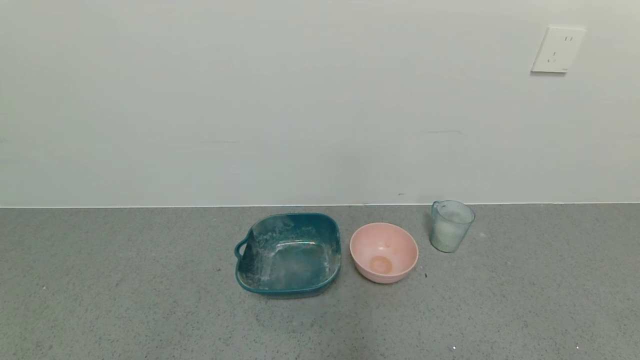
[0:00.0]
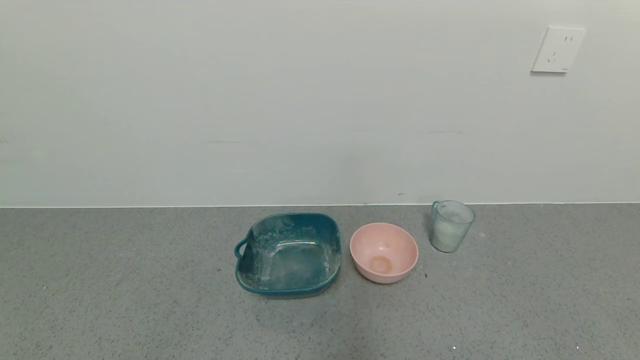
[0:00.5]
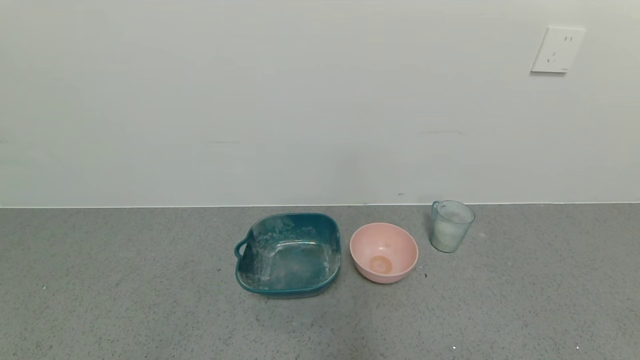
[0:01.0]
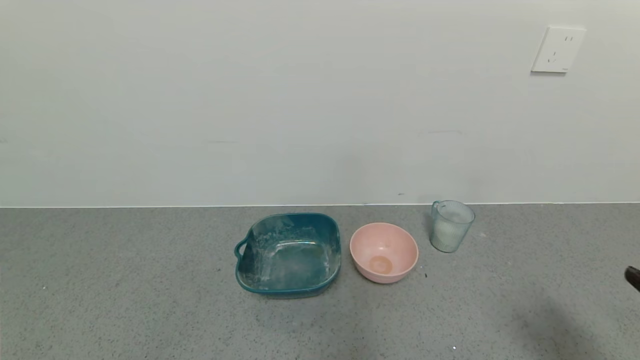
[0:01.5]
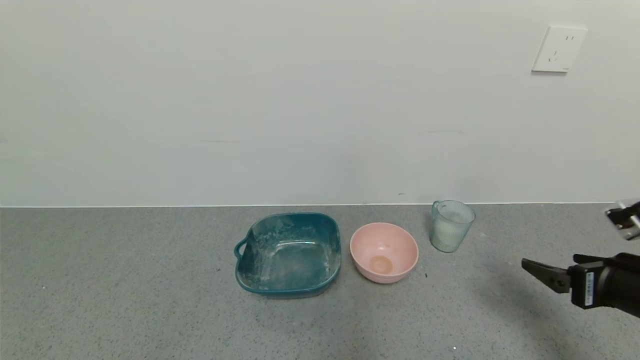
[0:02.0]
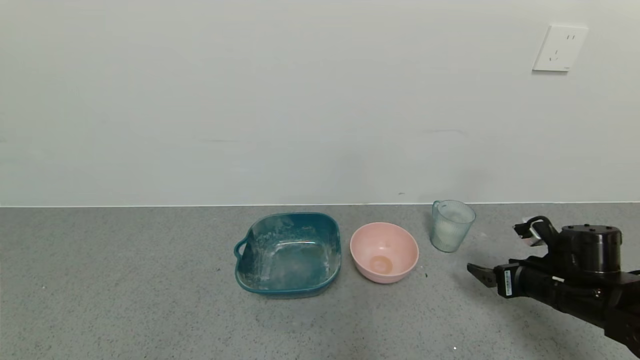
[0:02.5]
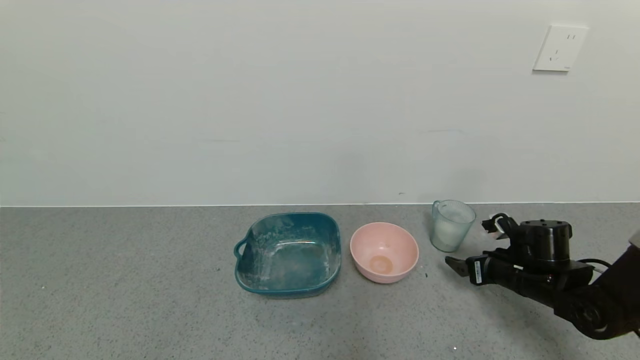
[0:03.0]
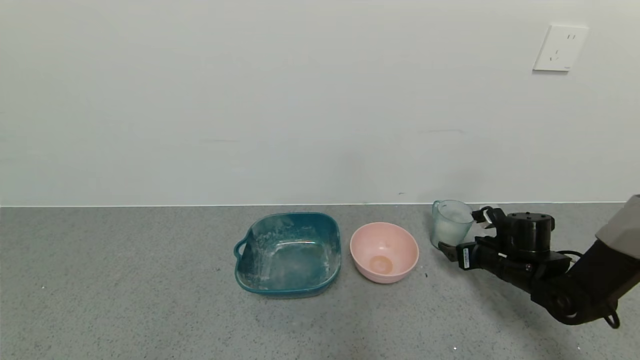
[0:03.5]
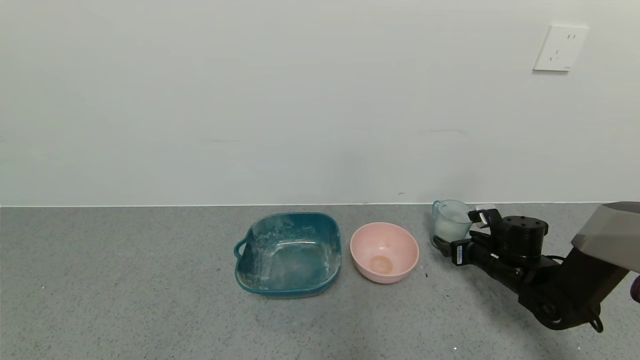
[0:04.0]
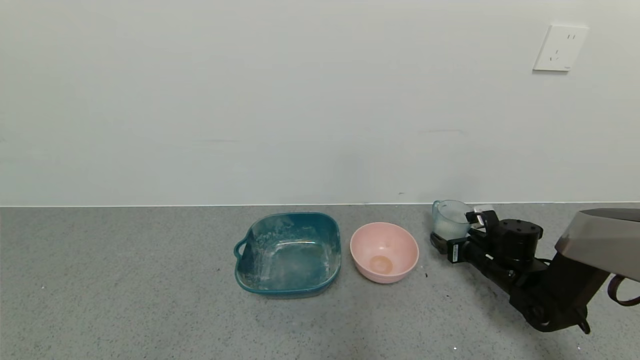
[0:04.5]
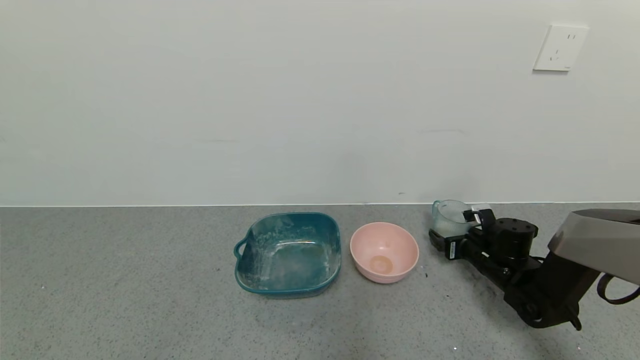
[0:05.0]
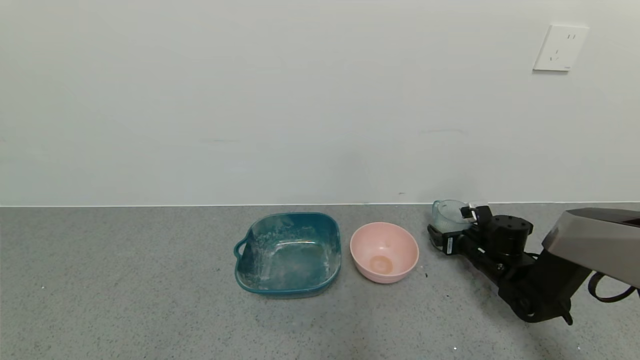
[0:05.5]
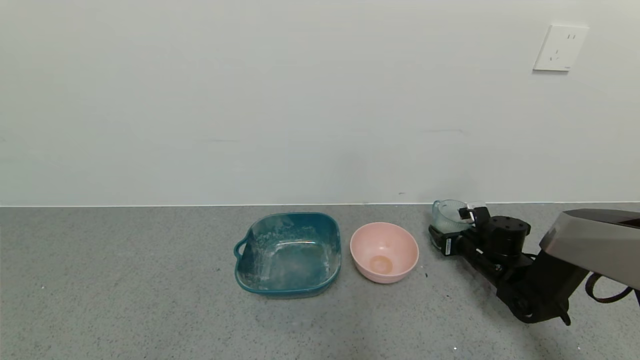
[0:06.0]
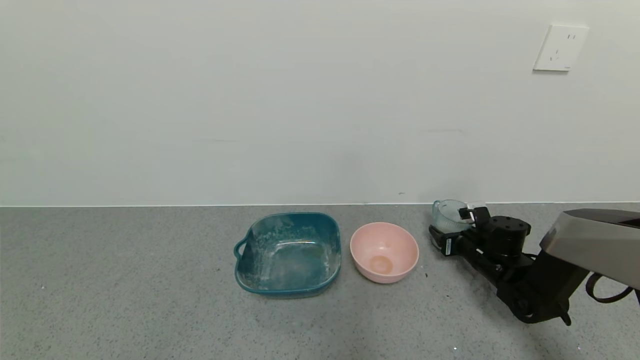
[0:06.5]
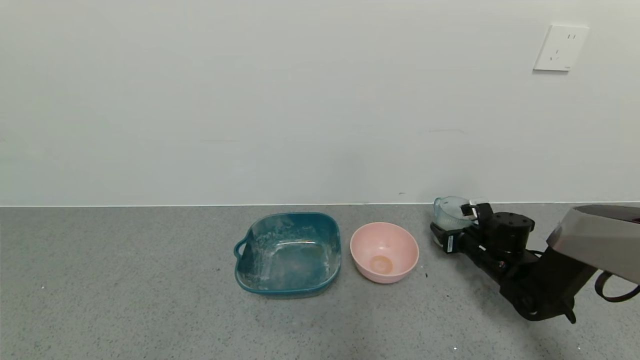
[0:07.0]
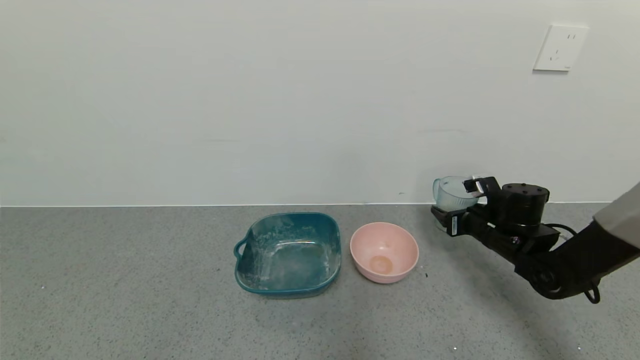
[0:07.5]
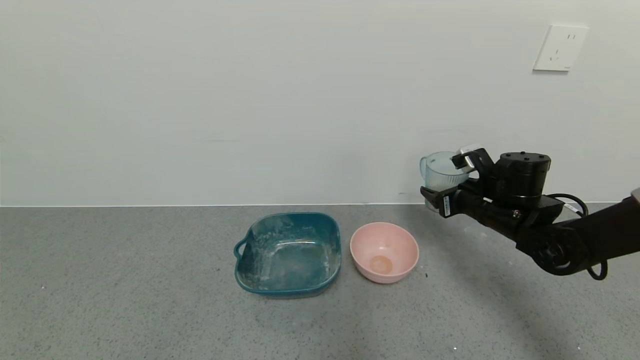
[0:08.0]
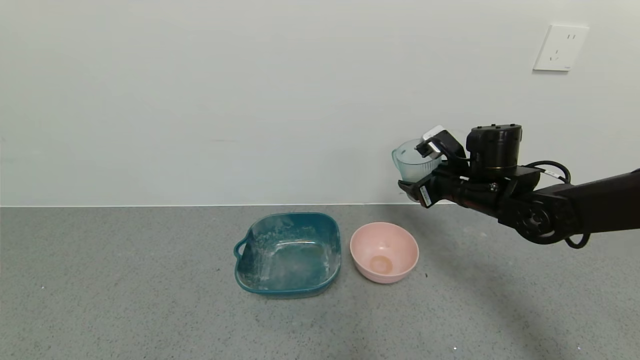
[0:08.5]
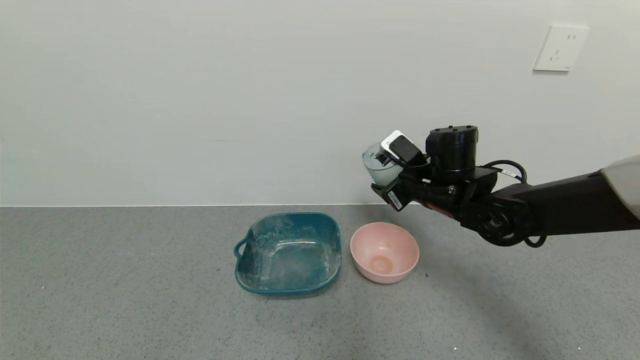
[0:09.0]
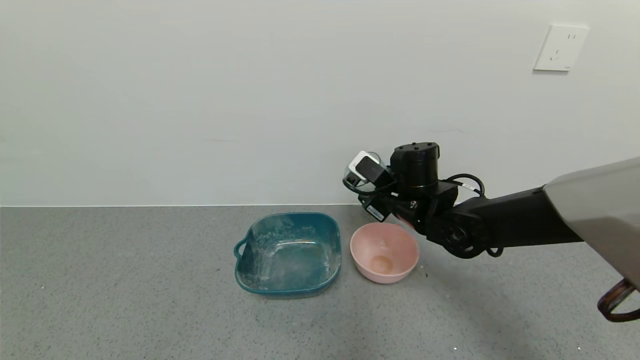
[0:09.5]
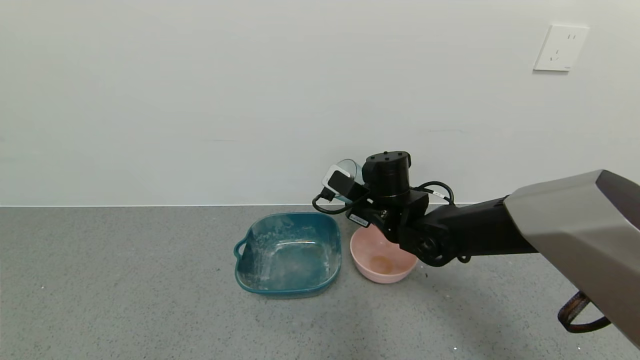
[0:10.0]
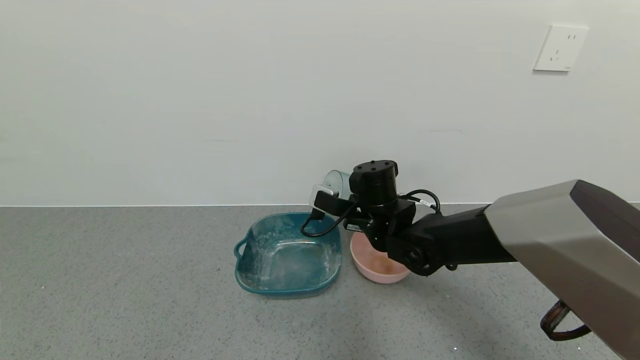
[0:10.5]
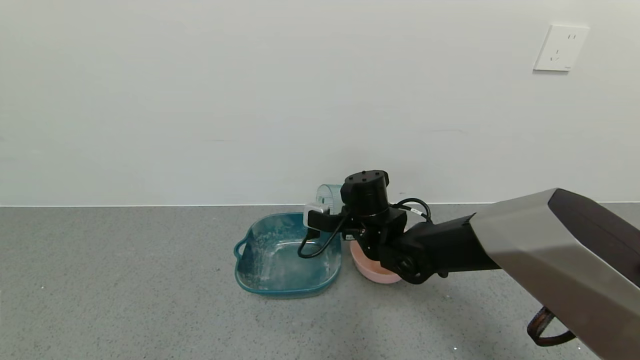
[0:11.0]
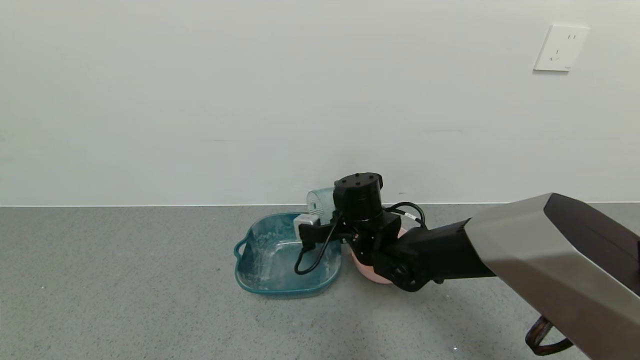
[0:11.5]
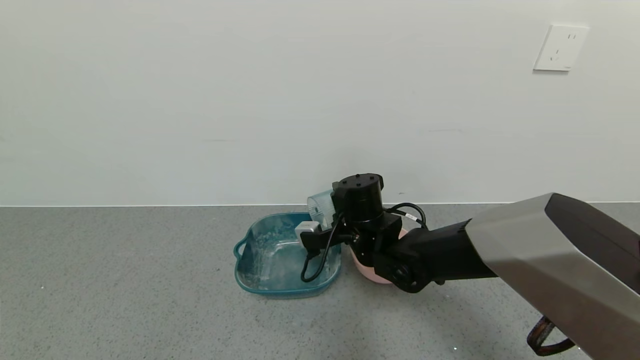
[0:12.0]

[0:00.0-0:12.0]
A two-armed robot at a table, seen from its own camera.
Task of the whole recording: use a gripper to pick up the cup and pour the powder into a bowl or tray.
Step, 0:00.0 to 0:06.0: Grasp the glass of powder with the right gripper.
0:00.0 to 0:02.0: The right gripper goes about 20 cm forward.
0:02.0 to 0:04.0: The right gripper heads forward and downward, covering about 20 cm.
0:04.0 to 0:06.0: The right gripper closes.
0:06.0 to 0:08.0: The right gripper travels upward by roughly 15 cm.
0:08.0 to 0:10.0: The right gripper travels to the left by roughly 20 cm.

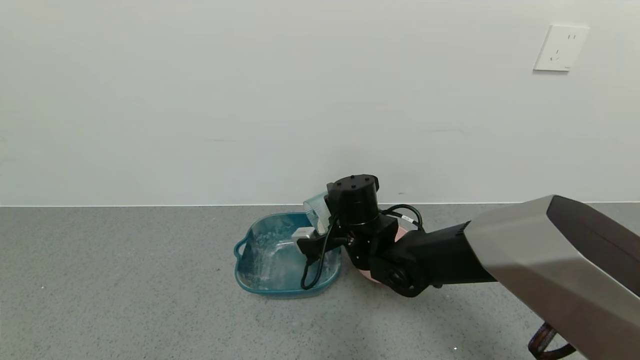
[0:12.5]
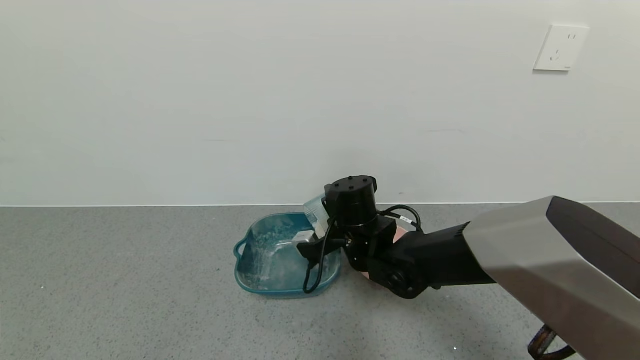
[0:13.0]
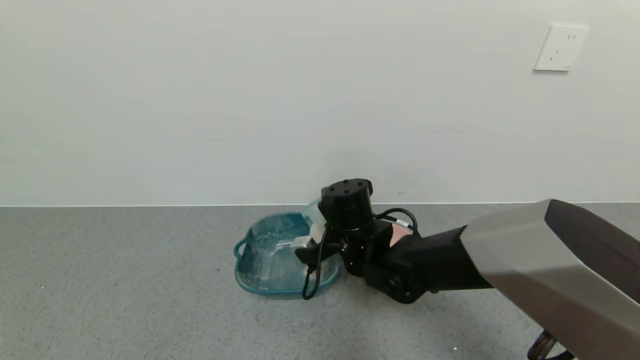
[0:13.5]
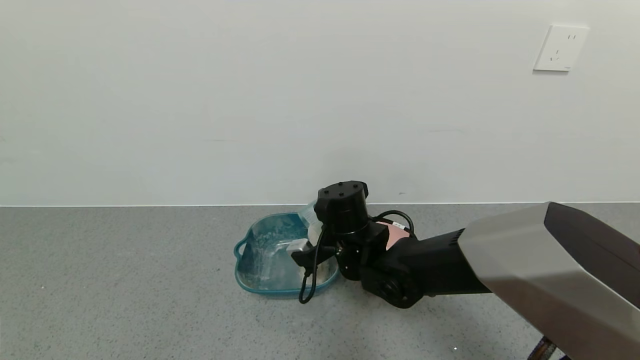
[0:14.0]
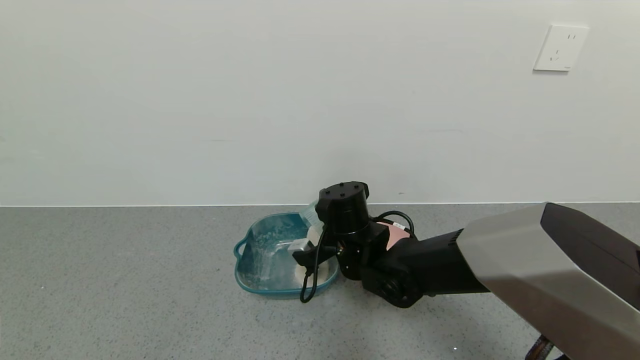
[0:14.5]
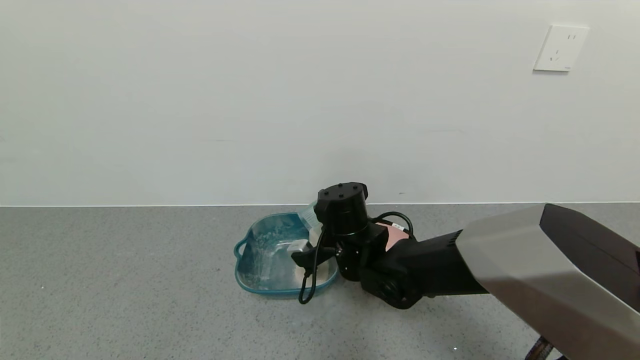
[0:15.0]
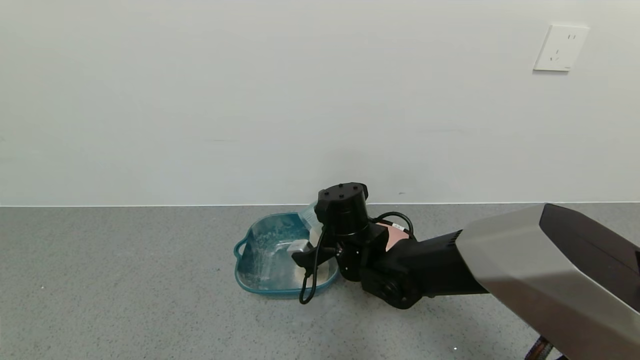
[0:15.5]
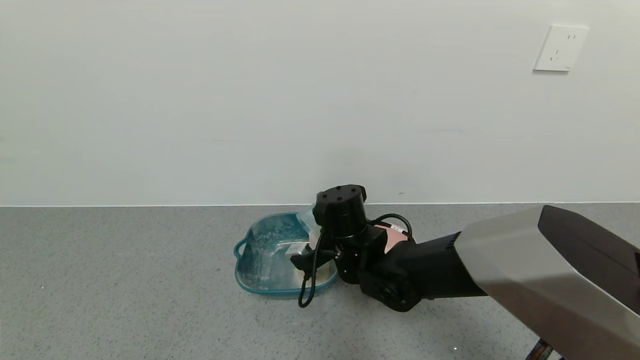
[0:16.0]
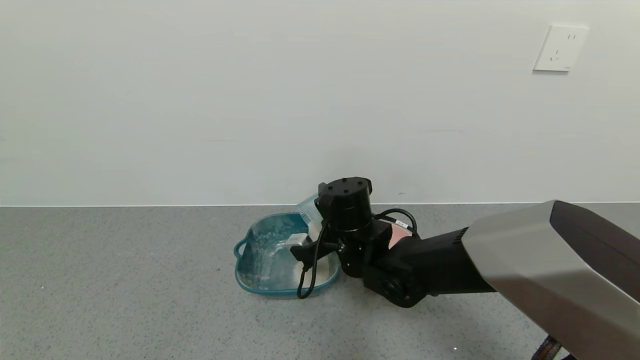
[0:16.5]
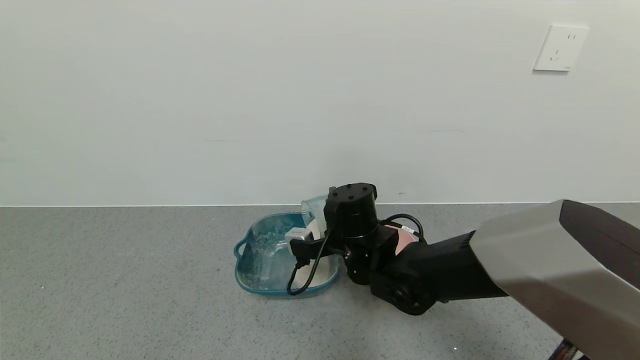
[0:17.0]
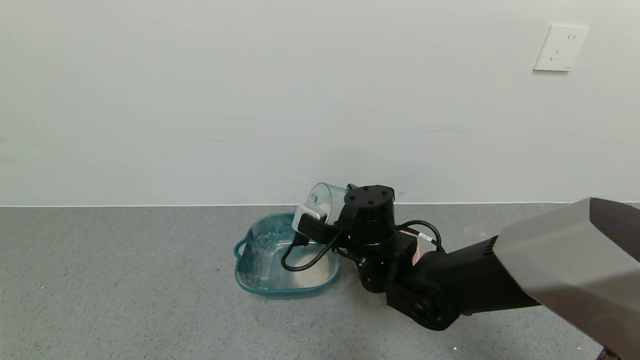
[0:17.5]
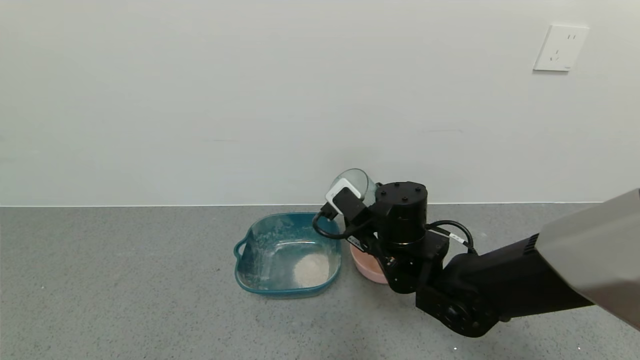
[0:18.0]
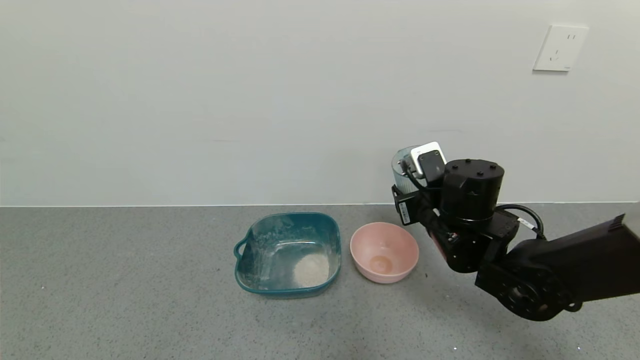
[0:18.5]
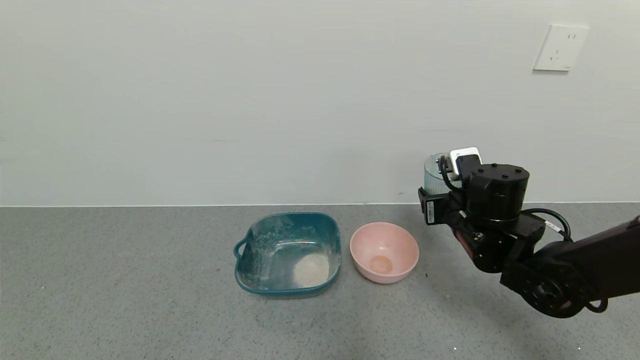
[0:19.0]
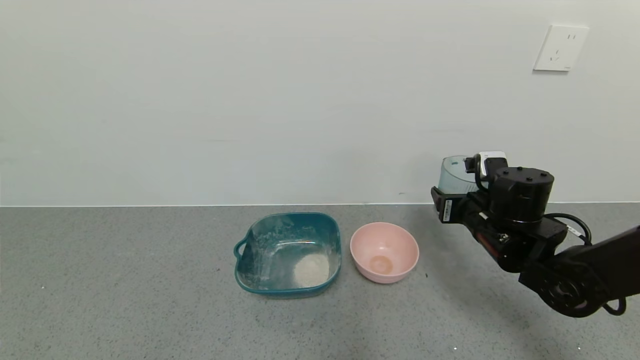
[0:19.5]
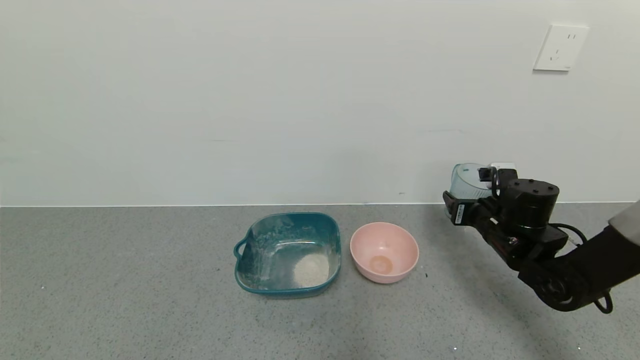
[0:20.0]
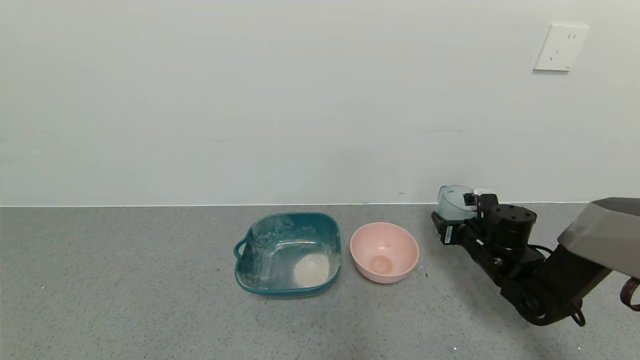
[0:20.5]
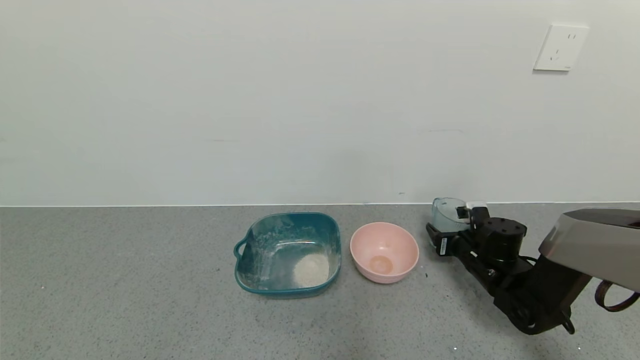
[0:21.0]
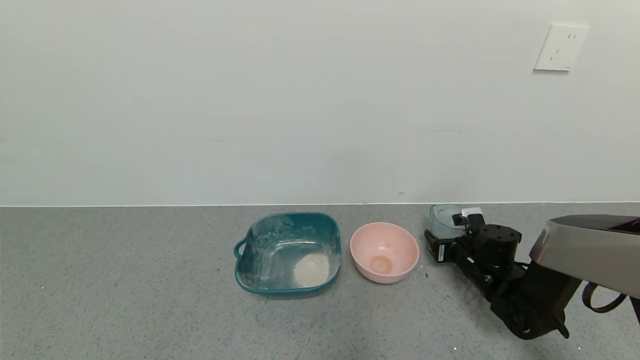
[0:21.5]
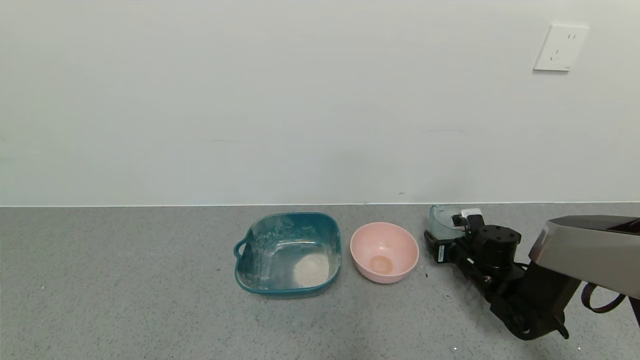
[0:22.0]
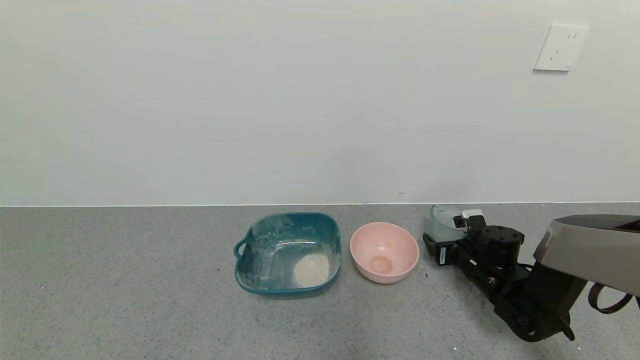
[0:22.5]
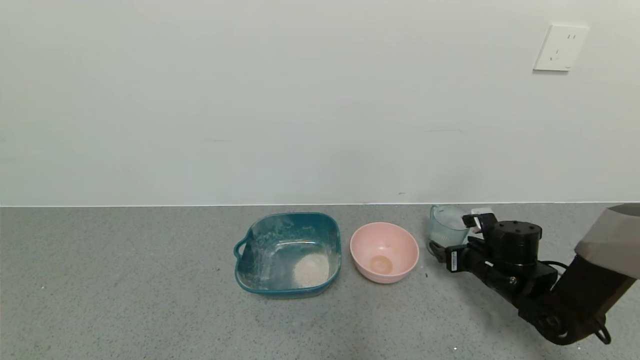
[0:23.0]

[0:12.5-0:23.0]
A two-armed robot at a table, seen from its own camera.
Task of the whole recording: use a gripper to pick up the cup and pour the powder into a bowl or tray.
Step, 0:12.5 to 0:17.0: Pour the powder into the pink bowl with the right gripper.
Step, 0:17.5 to 0:23.0: Place the glass cup down with the right gripper.
0:12.5 to 0:14.5: The grippers move only a little.
0:14.5 to 0:16.5: Both grippers stay put.
0:16.5 to 0:19.0: The right gripper is displaced to the right by approximately 20 cm.
0:19.0 to 0:21.0: The right gripper is displaced downward and to the right by about 15 cm.
0:21.0 to 0:23.0: The right gripper opens up.
